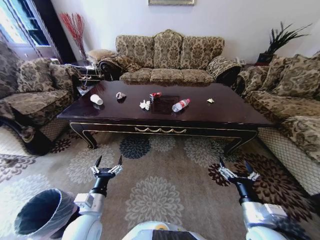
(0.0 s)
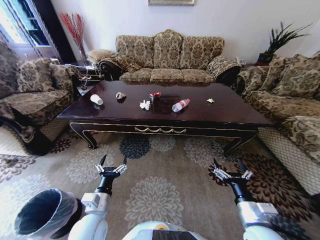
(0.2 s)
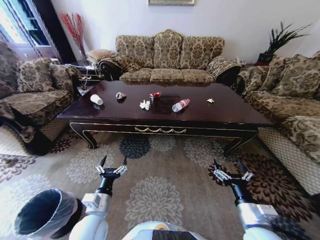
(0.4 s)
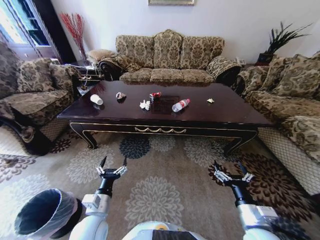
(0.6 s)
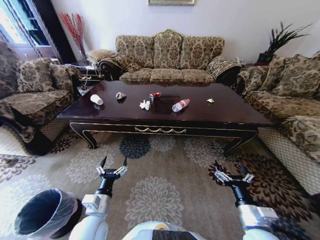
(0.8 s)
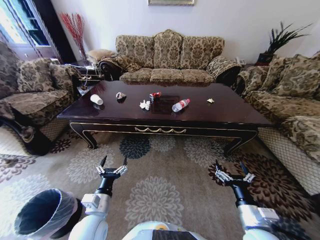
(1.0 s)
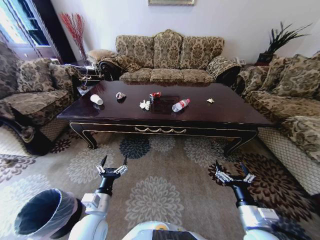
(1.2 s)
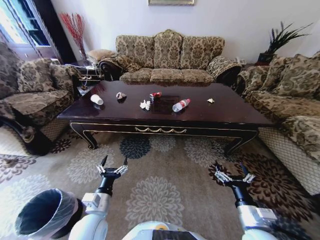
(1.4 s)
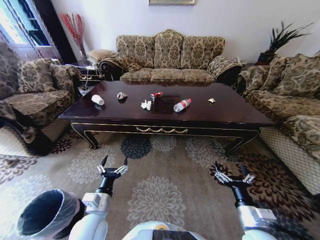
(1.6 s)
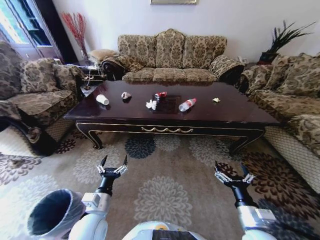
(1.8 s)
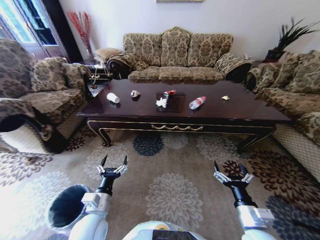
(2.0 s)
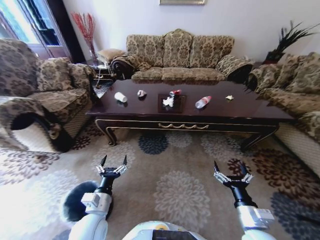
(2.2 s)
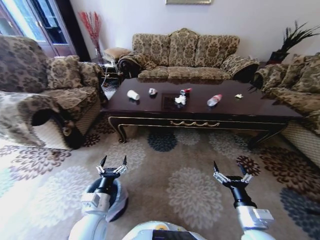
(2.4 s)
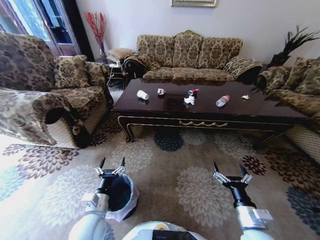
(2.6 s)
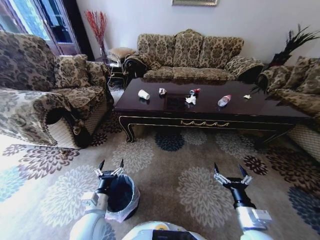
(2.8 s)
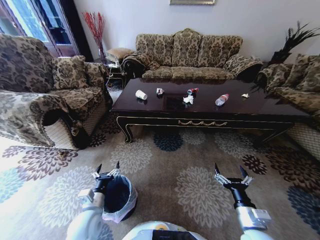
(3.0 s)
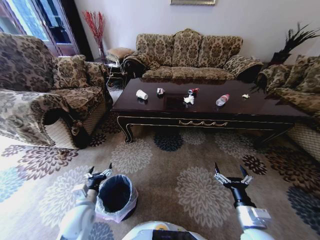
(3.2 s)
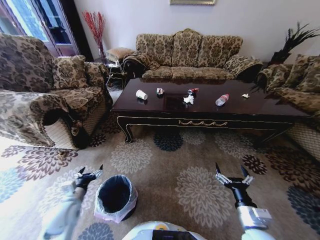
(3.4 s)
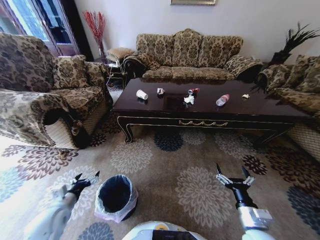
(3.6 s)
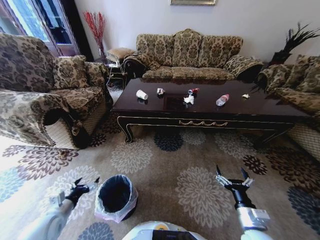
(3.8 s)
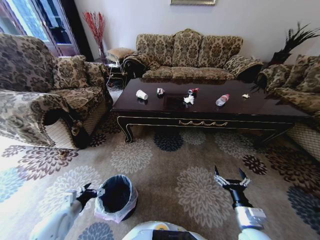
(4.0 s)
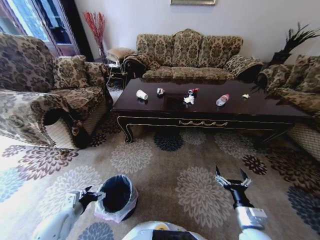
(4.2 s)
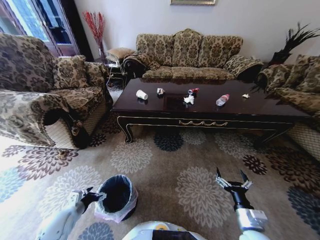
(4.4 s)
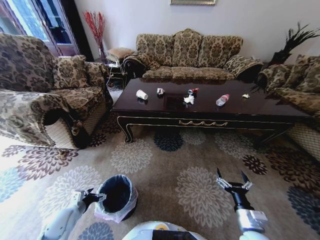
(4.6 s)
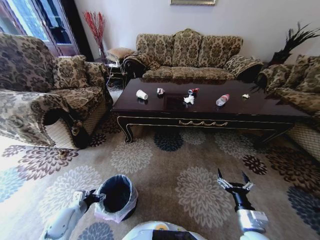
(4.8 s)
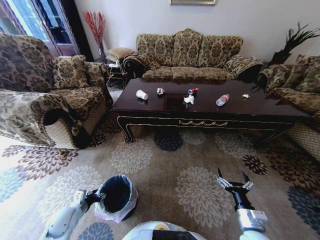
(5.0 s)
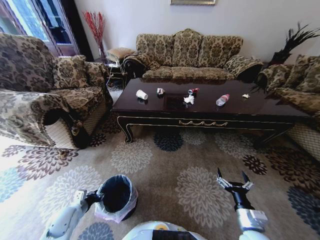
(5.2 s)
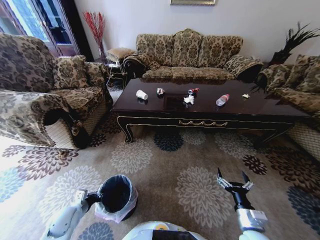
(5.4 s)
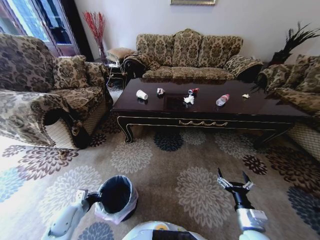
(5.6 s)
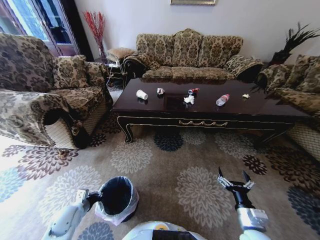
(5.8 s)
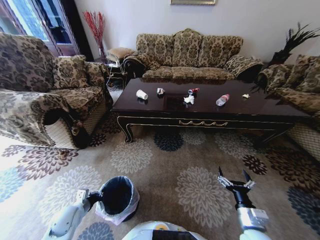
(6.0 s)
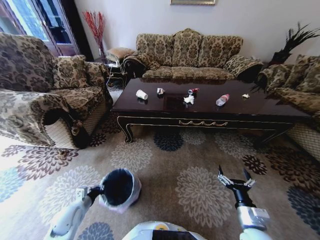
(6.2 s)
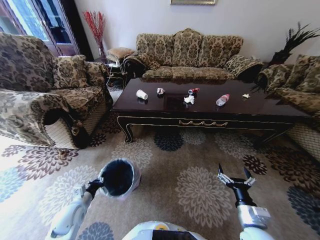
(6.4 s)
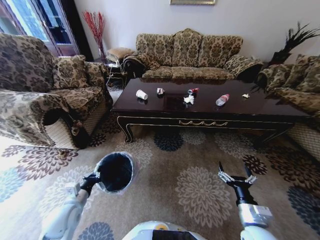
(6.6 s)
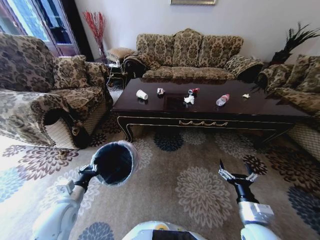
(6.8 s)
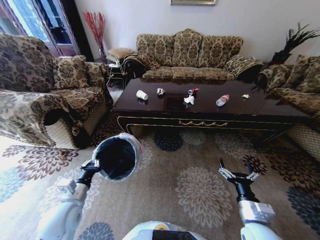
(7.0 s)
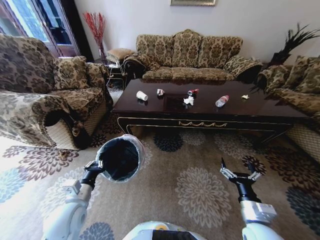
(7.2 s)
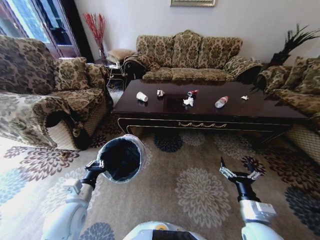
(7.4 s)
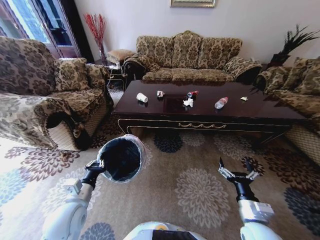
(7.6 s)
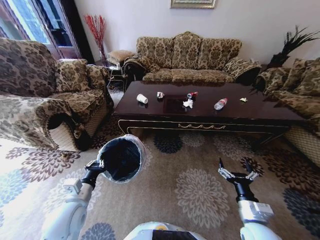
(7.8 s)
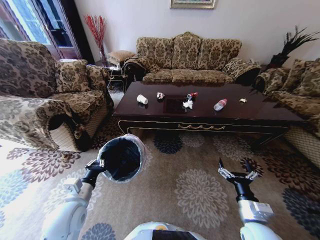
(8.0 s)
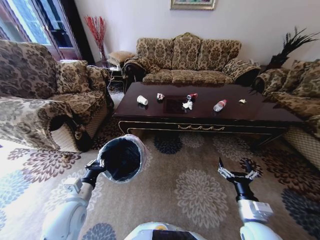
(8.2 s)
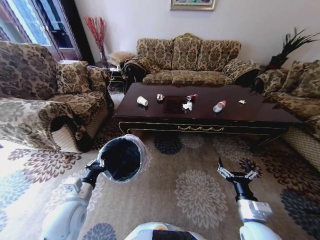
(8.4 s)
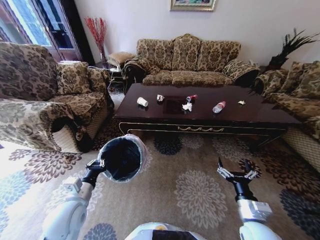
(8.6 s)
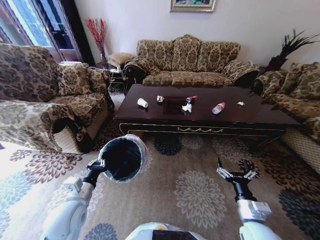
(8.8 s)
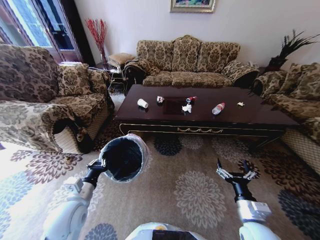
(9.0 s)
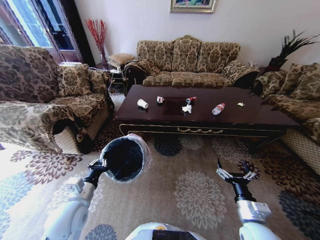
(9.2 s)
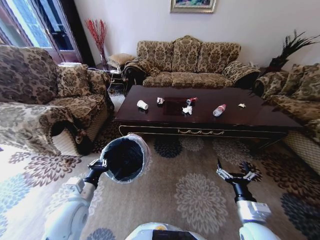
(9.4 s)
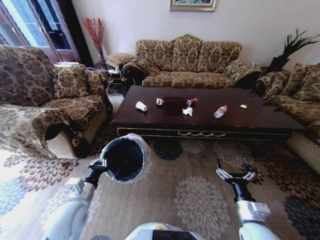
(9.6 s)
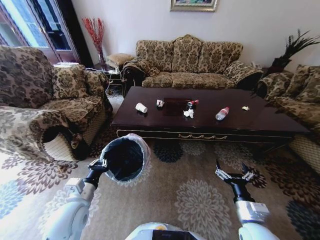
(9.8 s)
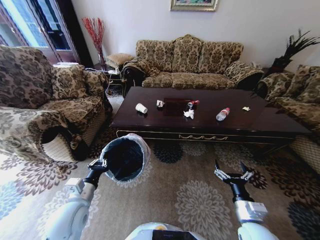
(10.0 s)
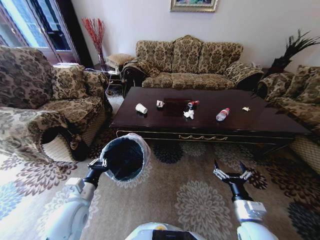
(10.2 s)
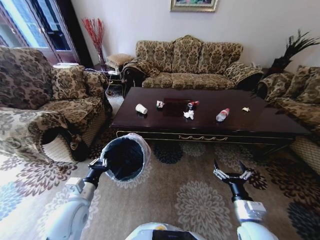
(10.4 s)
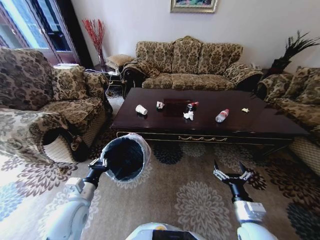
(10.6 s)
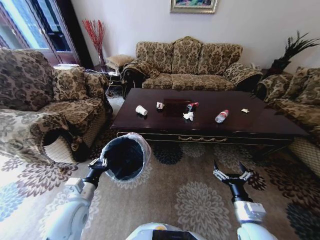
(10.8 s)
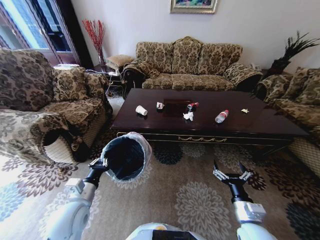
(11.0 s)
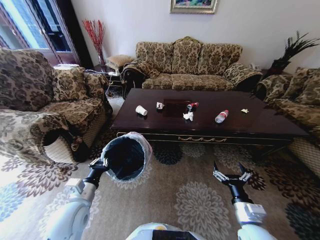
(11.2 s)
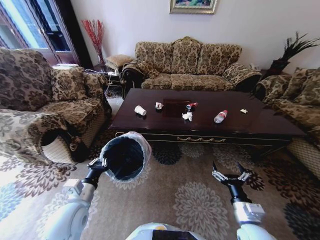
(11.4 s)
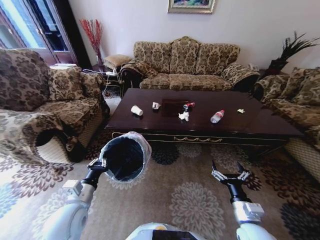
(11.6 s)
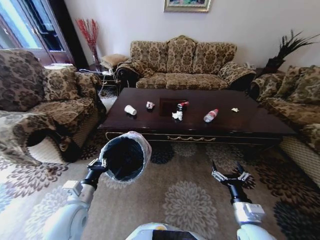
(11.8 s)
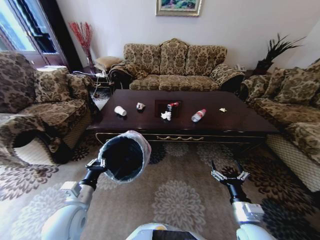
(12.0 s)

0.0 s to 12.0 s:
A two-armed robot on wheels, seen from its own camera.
Task of the whole recording: Move to the front of the table and place the trash on the table into the trash bin.
1.6 to 3.0 s: The left gripper shifts by roughly 5 cm.
3.0 to 4.4 s: The left gripper travels to the left by approximately 10 cm.
4.4 to 6.0 s: The left gripper closes.
6.0 to 7.6 s: The left gripper moves upward and to the right, roughly 15 cm.

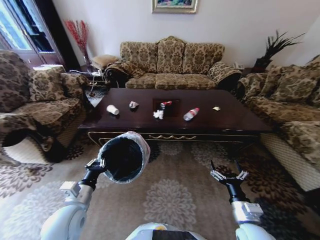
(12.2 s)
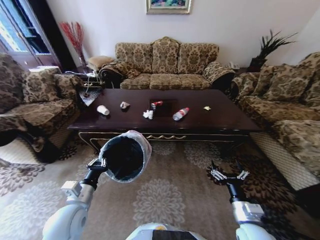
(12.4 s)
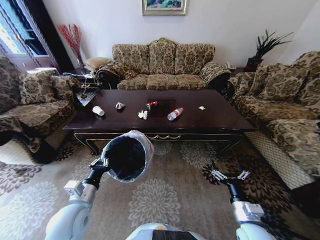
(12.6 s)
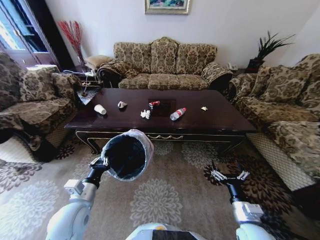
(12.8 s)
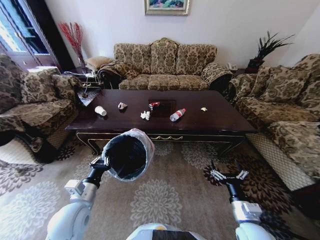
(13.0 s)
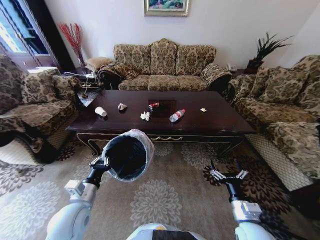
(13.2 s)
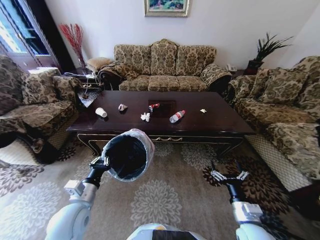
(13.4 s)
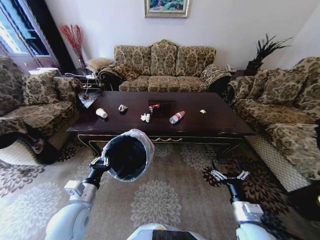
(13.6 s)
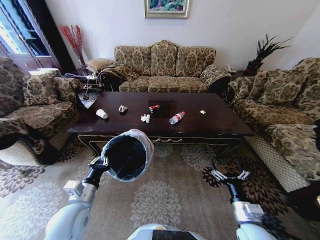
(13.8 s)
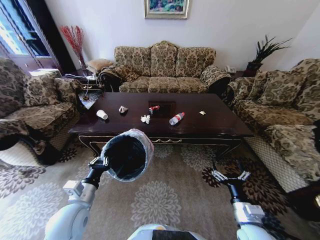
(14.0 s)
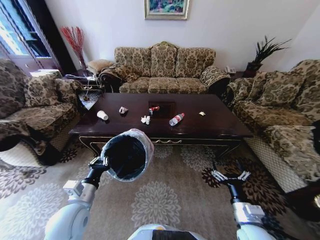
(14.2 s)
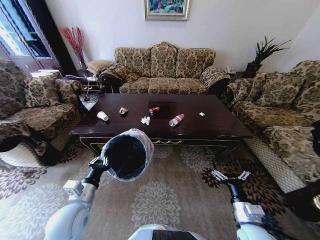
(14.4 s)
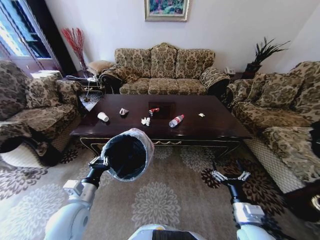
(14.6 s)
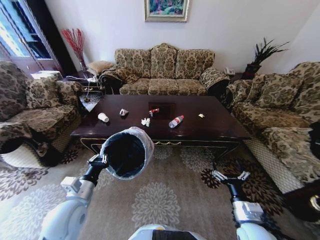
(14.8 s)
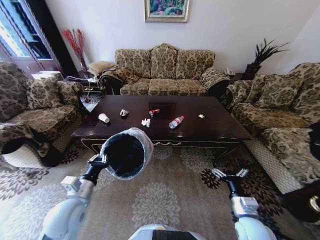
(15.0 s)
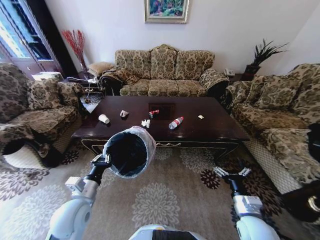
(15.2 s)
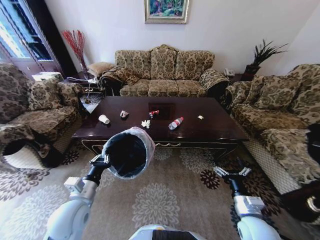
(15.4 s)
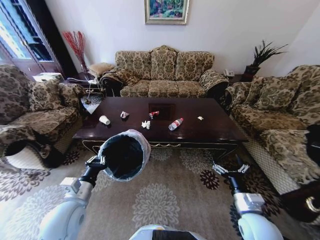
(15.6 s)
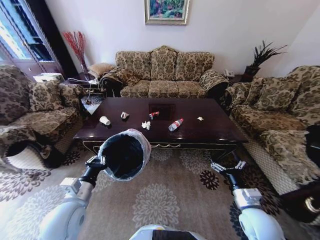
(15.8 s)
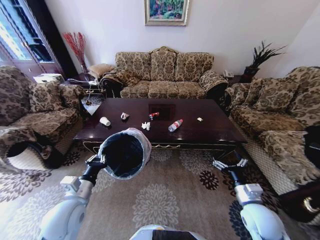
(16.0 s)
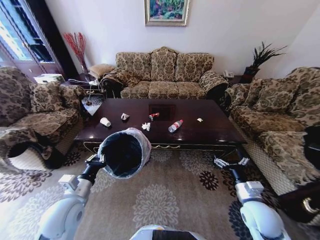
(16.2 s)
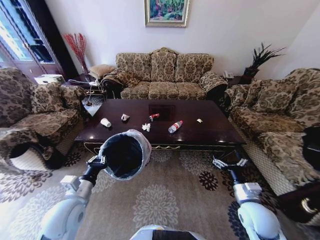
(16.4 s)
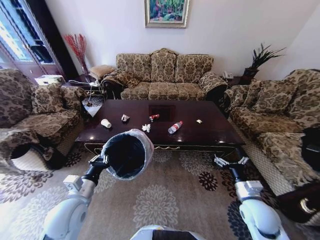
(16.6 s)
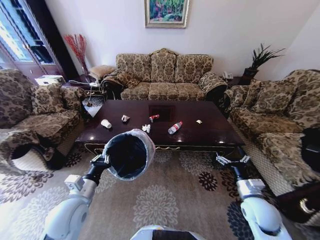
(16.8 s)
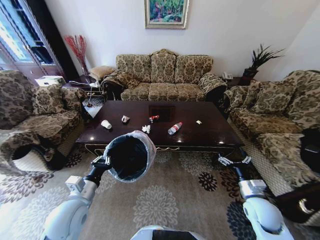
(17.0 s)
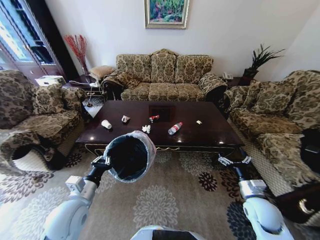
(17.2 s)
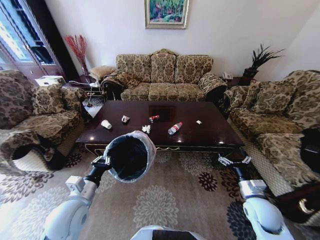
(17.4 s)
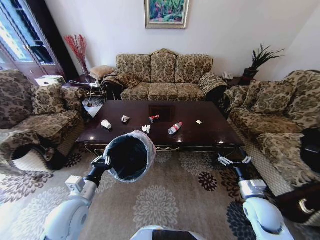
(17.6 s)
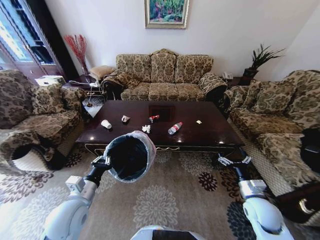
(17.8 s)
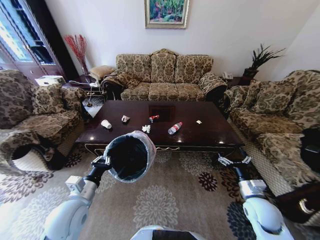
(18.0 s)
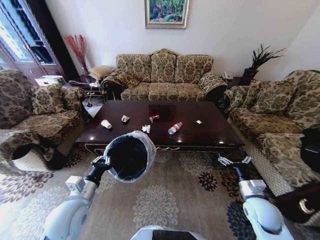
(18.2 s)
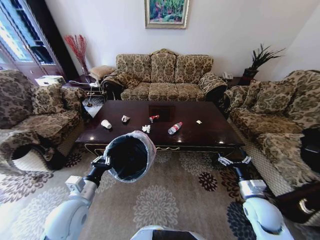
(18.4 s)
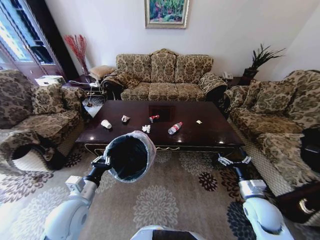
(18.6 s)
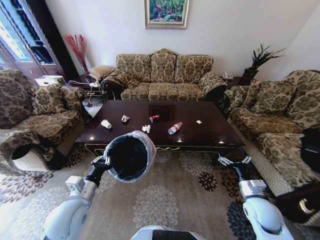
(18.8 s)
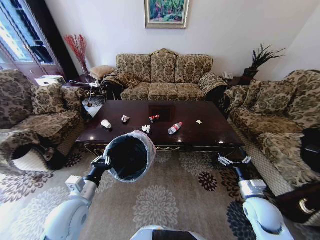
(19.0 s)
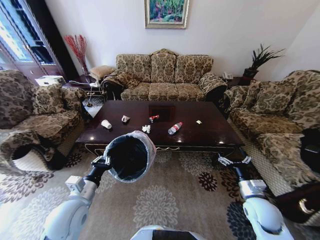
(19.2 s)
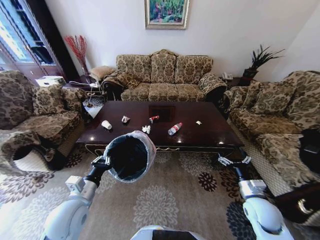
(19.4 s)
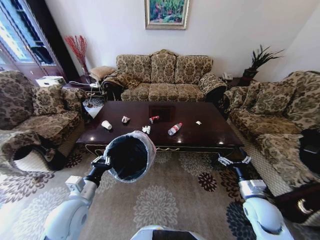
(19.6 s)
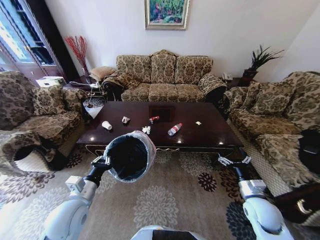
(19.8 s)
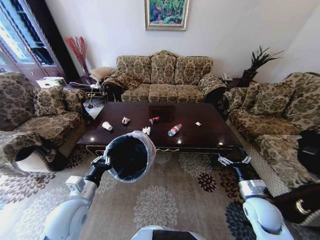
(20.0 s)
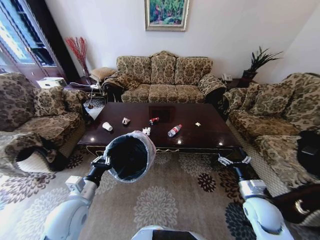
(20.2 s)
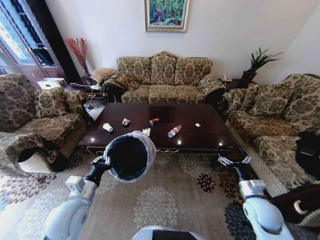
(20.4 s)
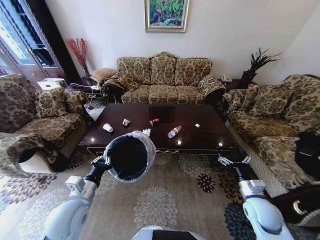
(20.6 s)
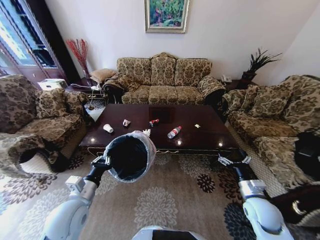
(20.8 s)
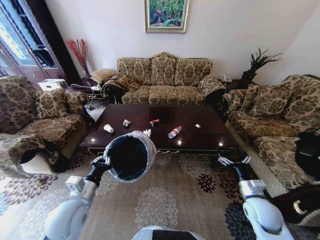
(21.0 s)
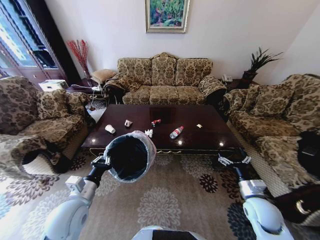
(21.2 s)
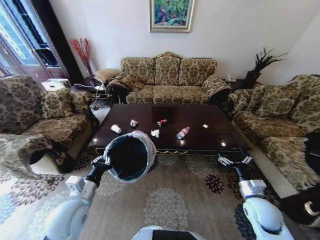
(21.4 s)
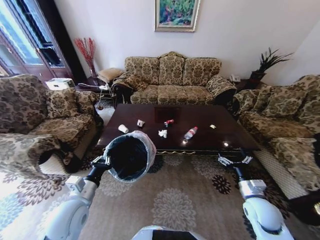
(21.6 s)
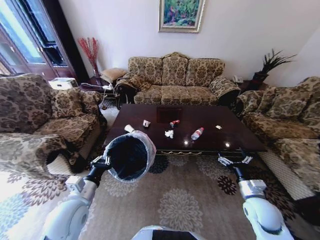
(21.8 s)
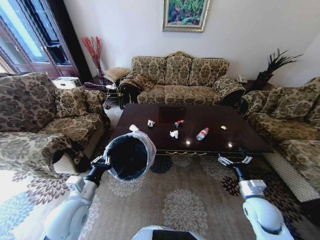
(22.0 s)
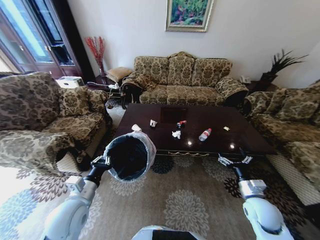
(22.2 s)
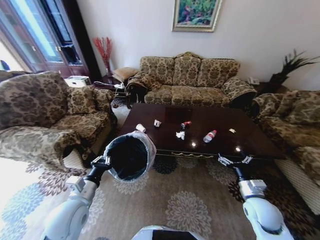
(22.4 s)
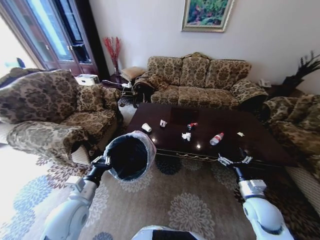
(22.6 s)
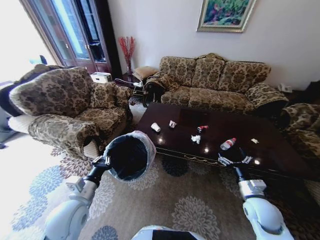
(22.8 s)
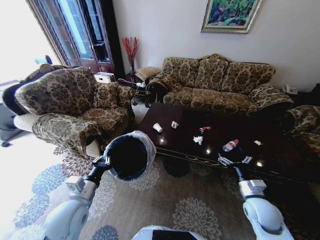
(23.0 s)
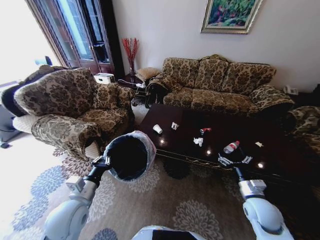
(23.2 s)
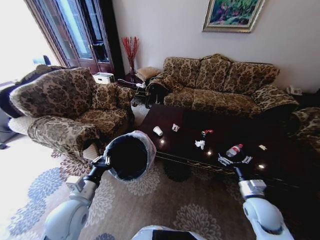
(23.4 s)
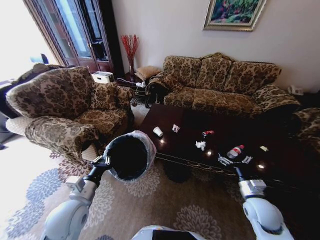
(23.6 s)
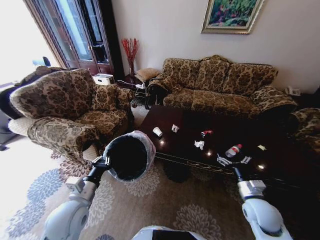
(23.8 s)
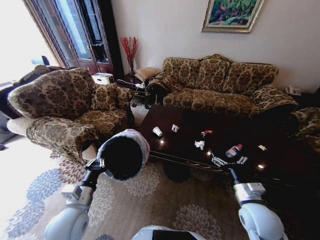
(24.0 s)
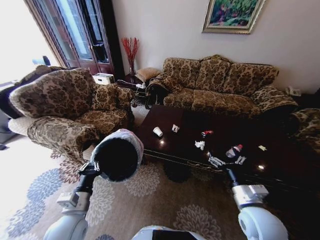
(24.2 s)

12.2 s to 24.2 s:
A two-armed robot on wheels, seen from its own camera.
Task of the whole recording: Move to the front of the table and place the trash on the table into the trash bin.
15.2 to 16.6 s: The right gripper moves roughly 5 cm.
16.6 to 18.2 s: There are only small adjustments of the grippers.
18.2 to 21.2 s: Neither gripper changes place.
22.6 to 24.2 s: The right gripper is displaced to the left and upward by some 10 cm.
